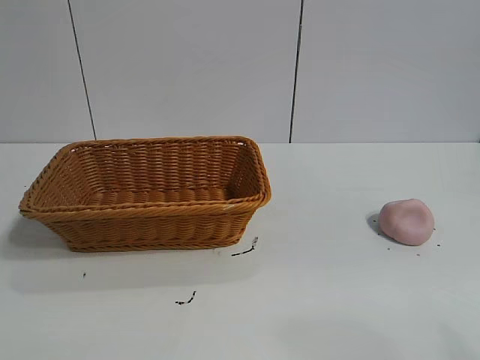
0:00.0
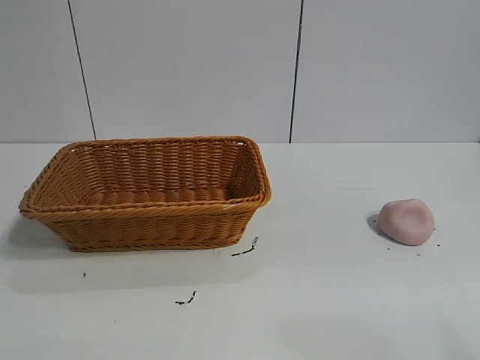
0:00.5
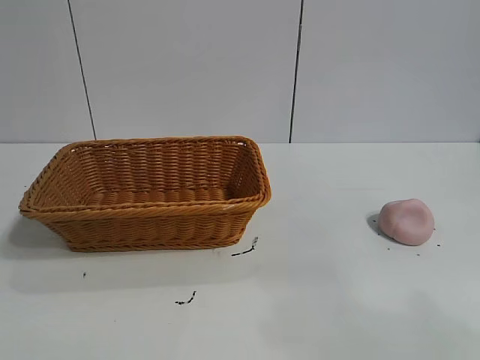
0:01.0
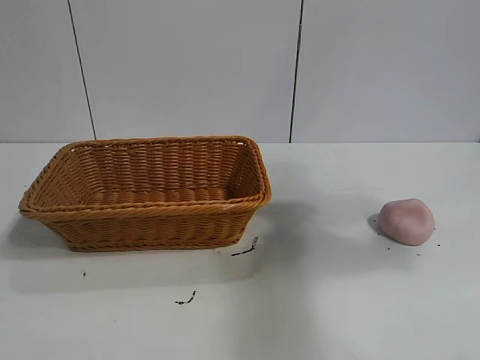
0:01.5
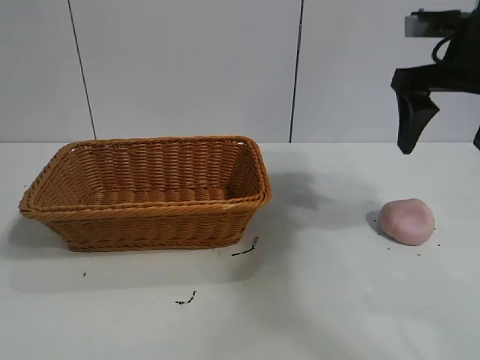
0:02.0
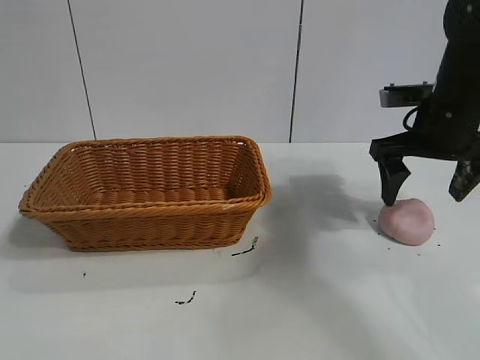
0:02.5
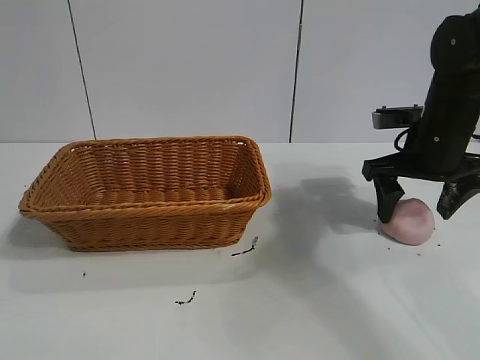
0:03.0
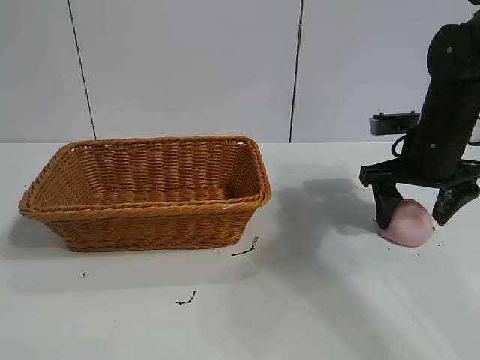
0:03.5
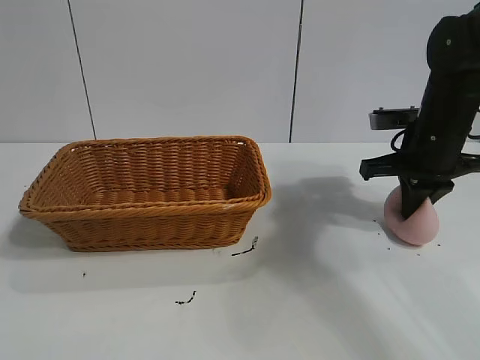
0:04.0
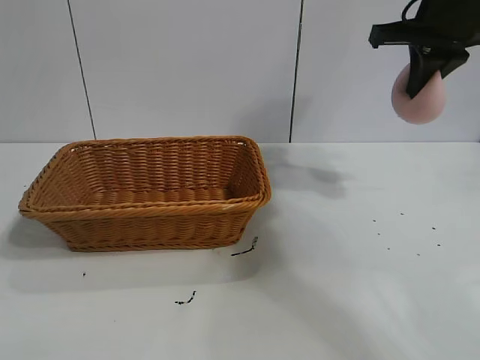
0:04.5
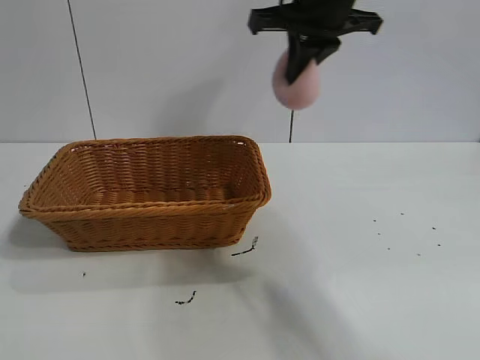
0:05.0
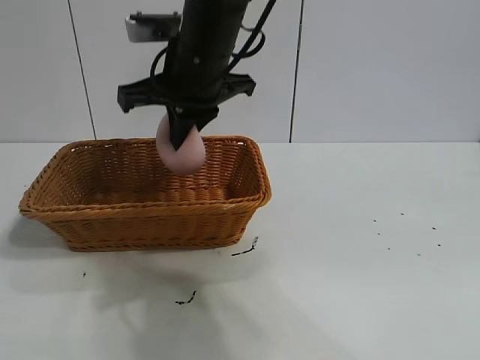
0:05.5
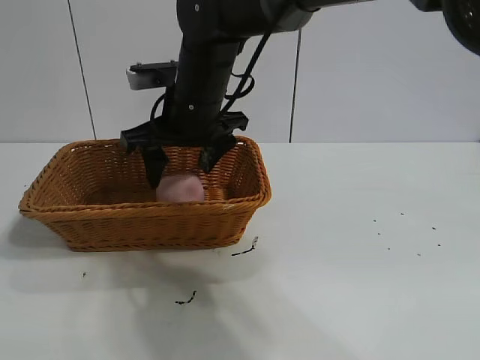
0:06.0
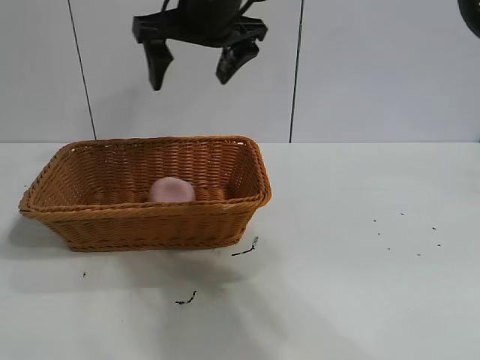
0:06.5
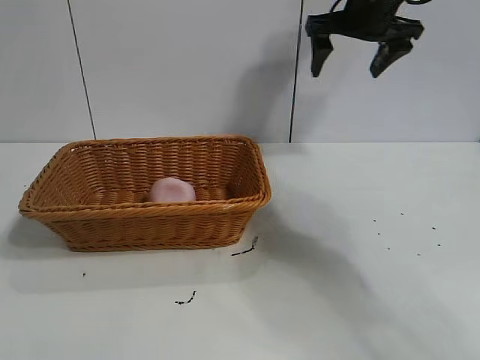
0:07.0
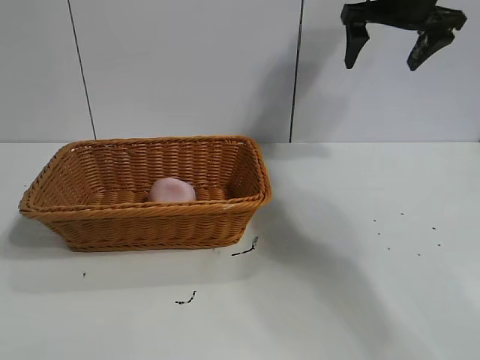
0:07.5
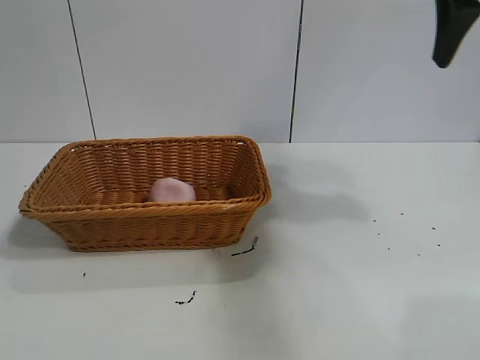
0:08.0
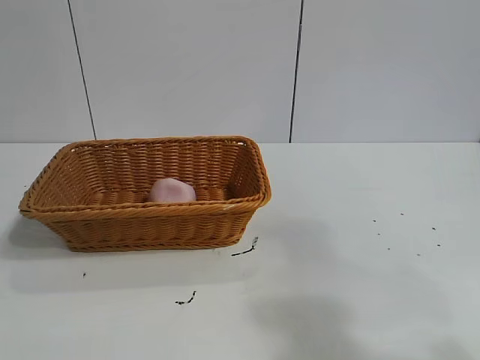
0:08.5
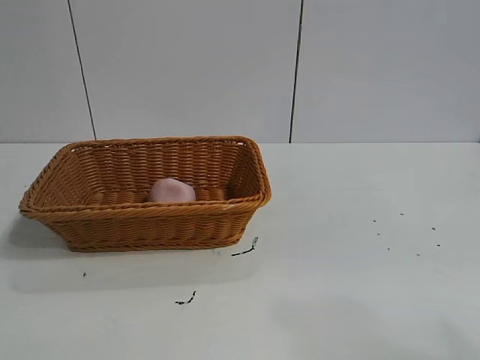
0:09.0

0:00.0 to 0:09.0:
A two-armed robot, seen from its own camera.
Task of the whole recording: pick up the peach and put it into the basket.
Step, 0:01.0 to 0:03.5: Grasp the peach with right gripper.
Step, 0:04.5 to 0:06.5: Place the peach in the basket with right gripper.

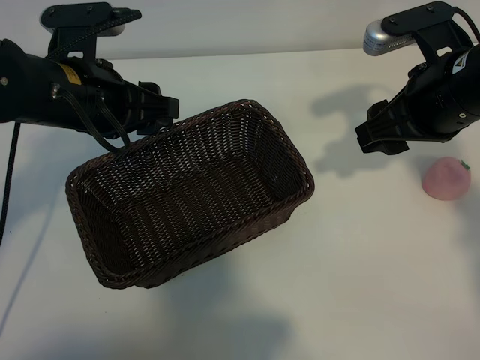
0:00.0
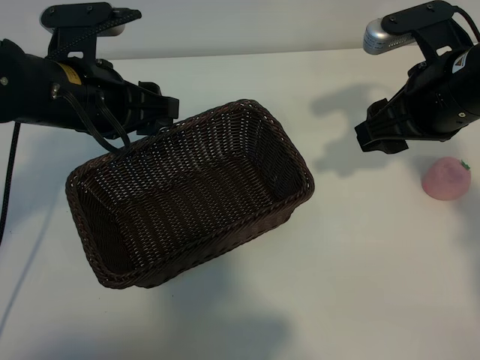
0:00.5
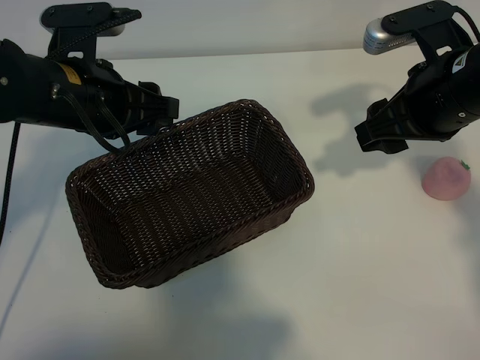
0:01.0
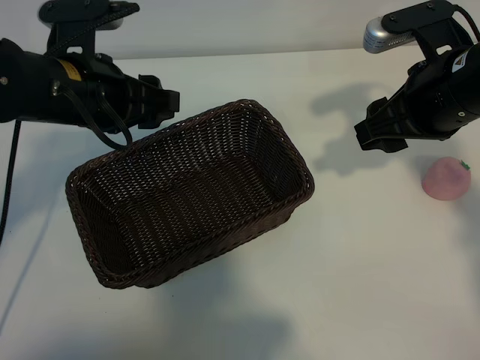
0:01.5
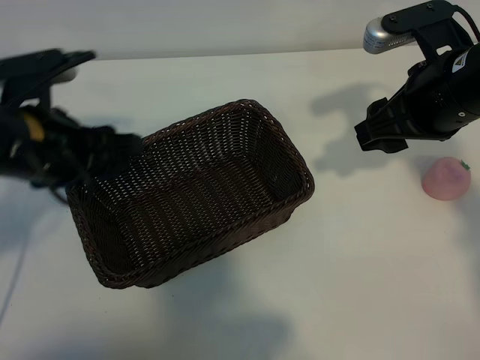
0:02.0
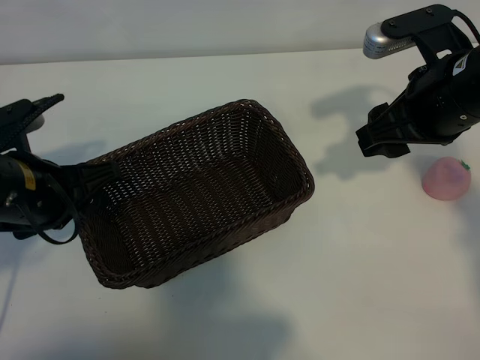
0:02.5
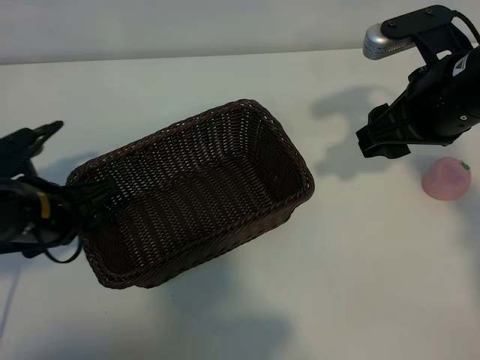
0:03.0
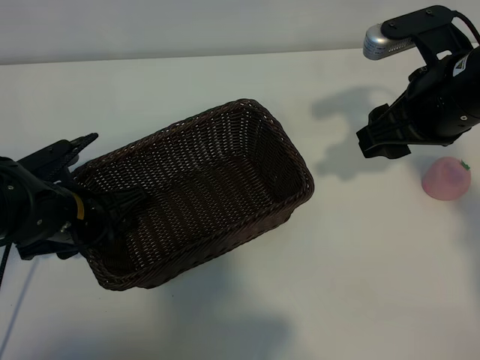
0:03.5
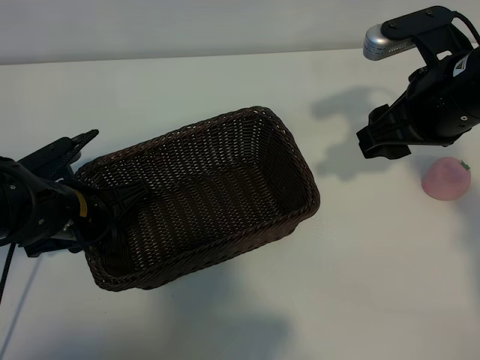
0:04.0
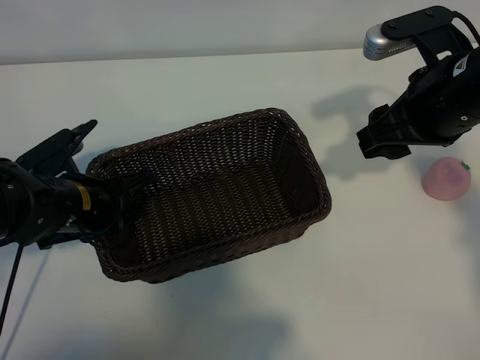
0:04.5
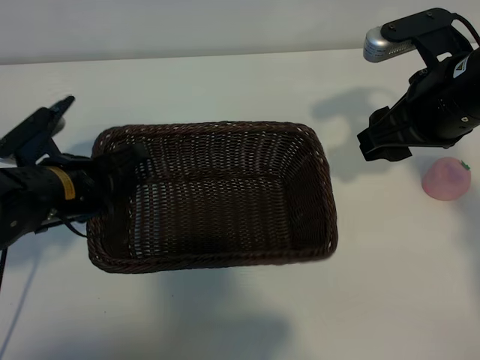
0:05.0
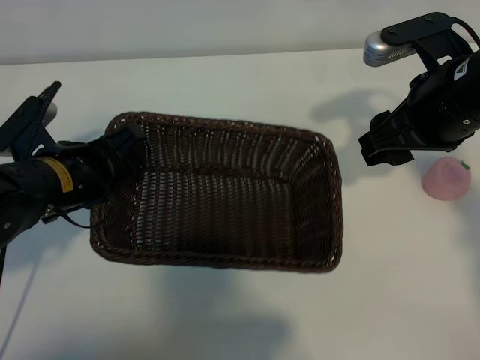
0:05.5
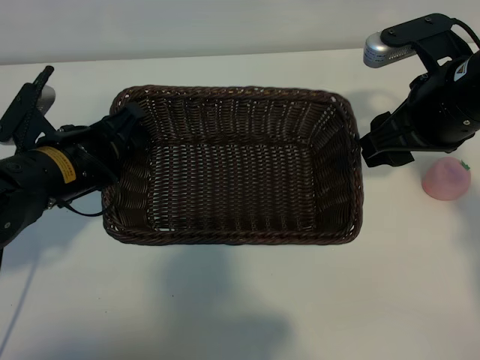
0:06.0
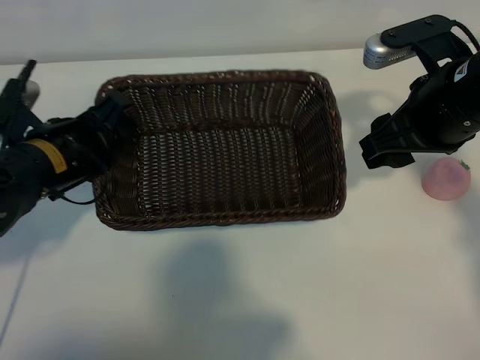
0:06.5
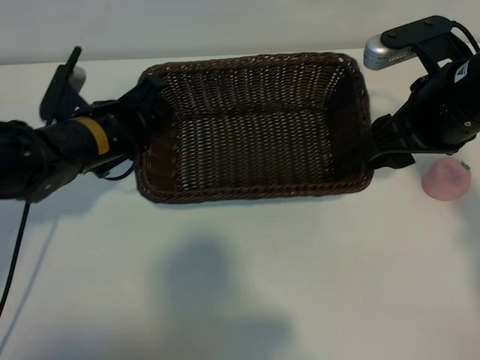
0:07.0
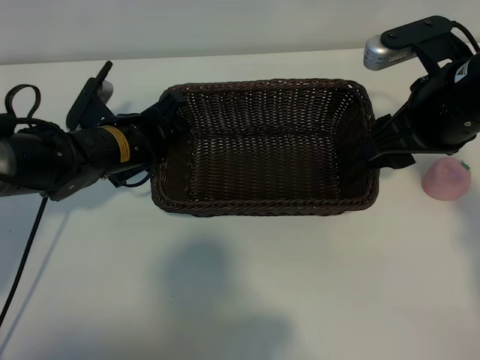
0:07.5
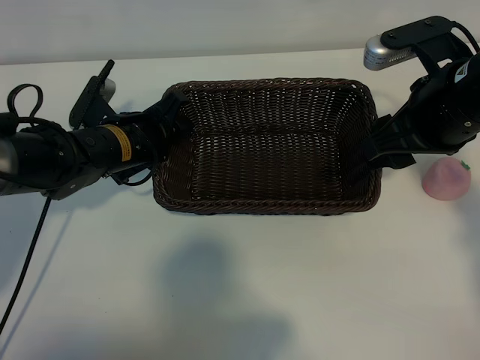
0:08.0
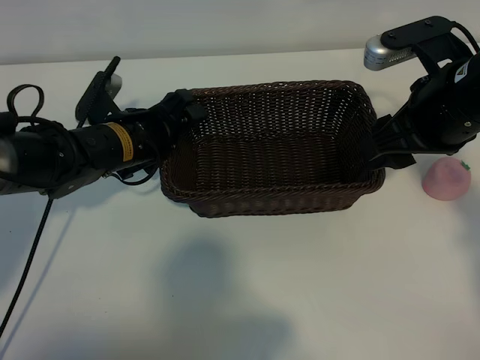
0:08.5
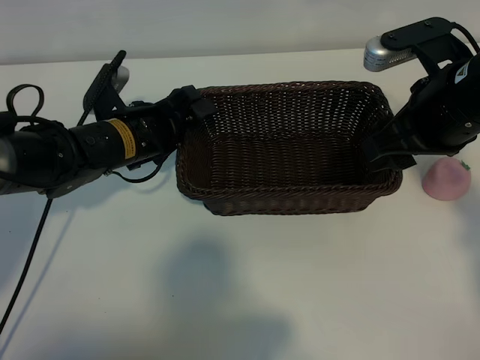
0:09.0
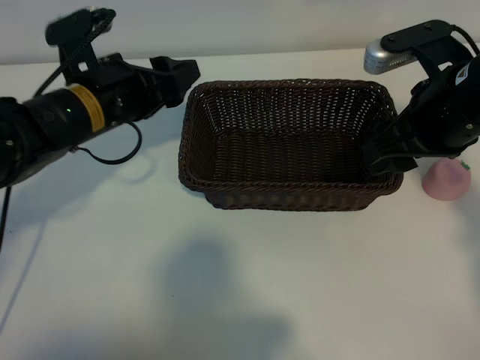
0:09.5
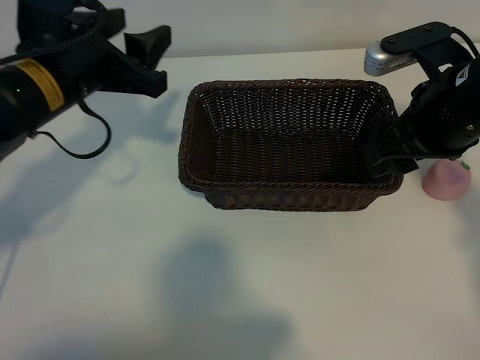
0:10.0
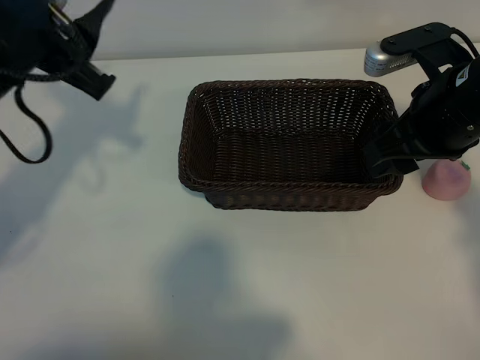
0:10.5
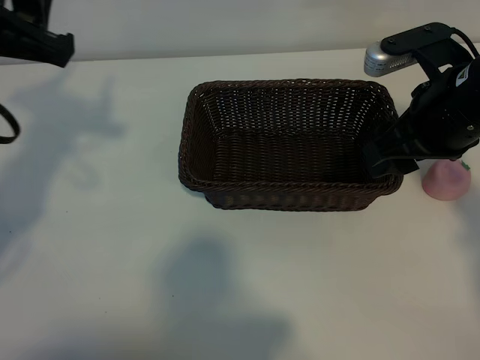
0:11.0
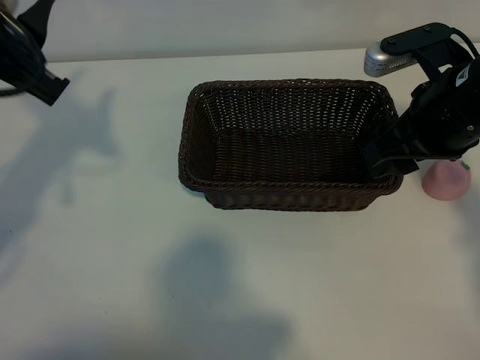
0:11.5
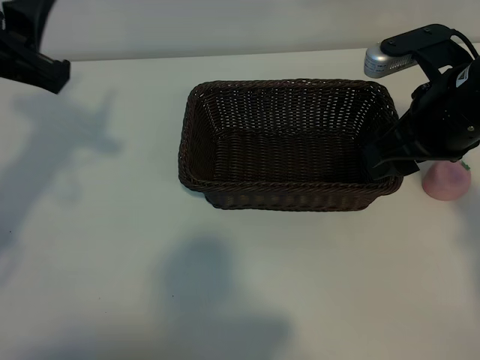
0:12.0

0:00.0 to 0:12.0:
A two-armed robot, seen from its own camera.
Task of the whole recording: pick up the peach and put it into the basket.
Step, 0:01.5 to 0:04.0: Grasp the basket with left gripper.
Step, 0:04.5 to 0:09.0: Place the basket in the center of view with left gripper.

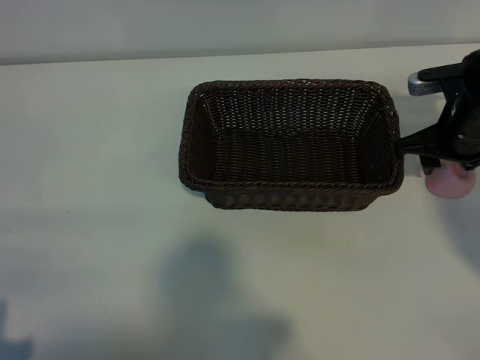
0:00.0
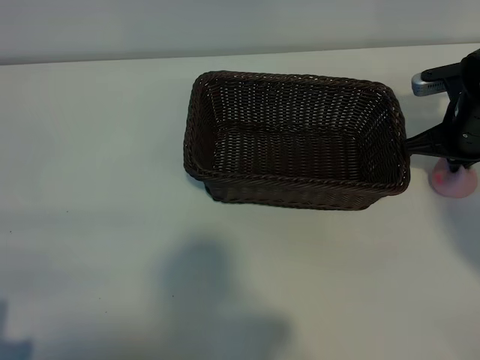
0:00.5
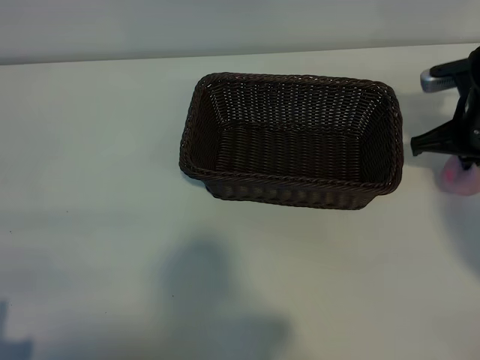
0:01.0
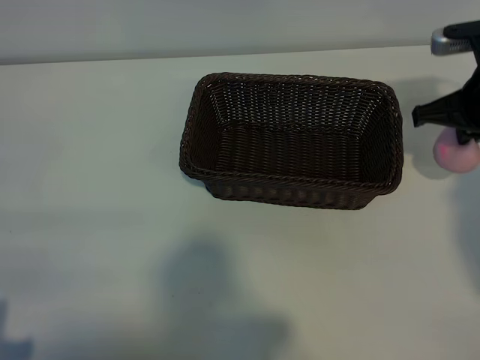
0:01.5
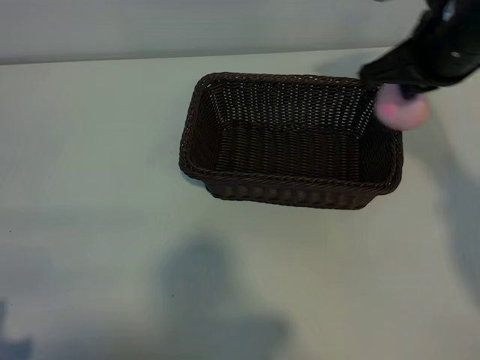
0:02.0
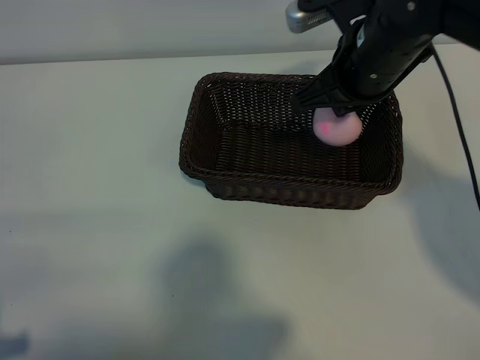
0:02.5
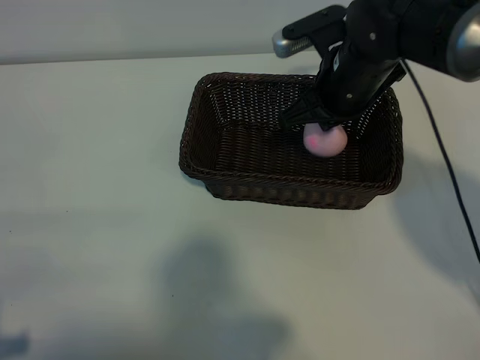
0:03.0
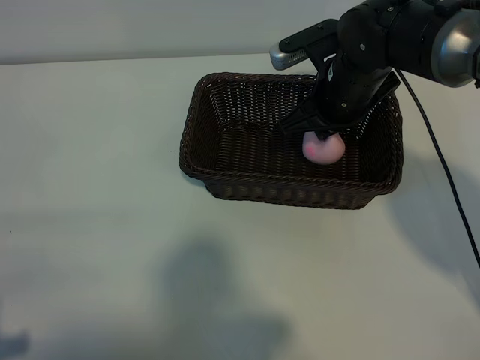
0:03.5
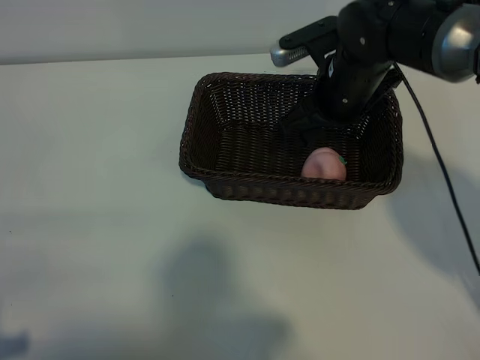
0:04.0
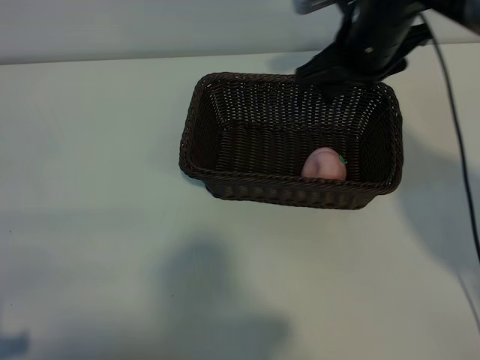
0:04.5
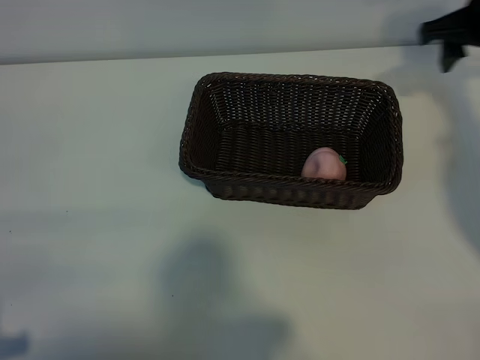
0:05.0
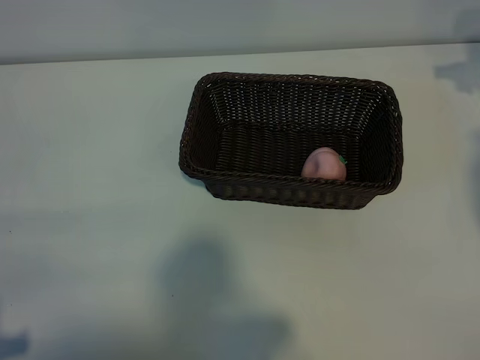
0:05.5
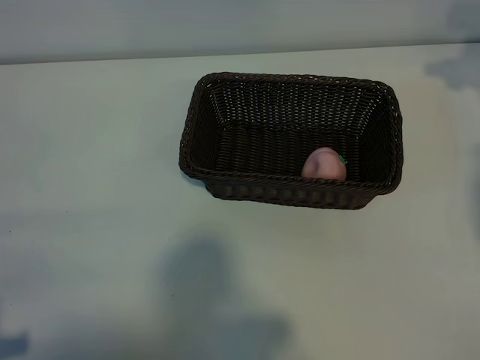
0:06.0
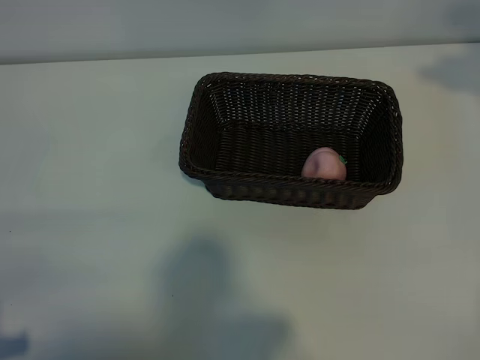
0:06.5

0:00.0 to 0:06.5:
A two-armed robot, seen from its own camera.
Task of the whole recording: pick up the peach and put it into the basket.
Step, 0:01.0 to 0:03.5: Place the peach in the basket with right gripper.
